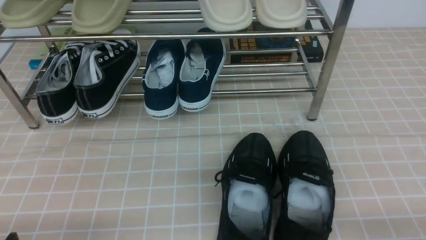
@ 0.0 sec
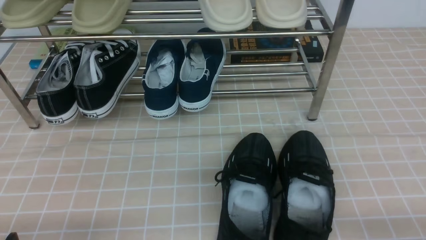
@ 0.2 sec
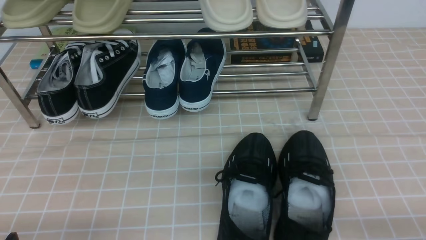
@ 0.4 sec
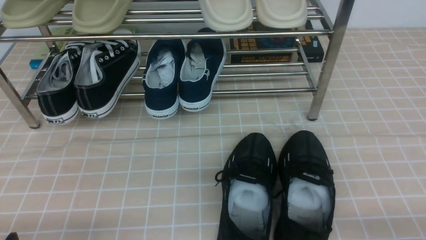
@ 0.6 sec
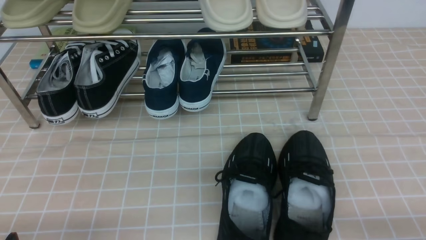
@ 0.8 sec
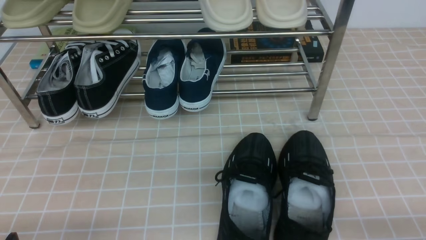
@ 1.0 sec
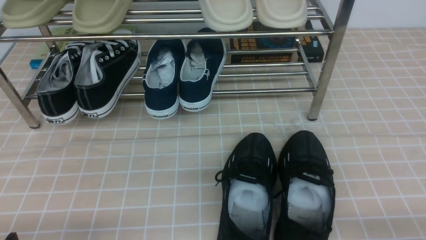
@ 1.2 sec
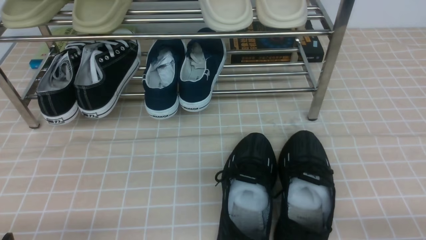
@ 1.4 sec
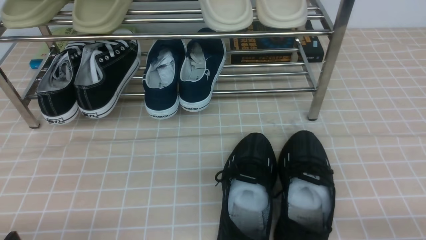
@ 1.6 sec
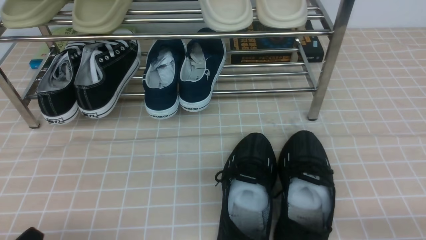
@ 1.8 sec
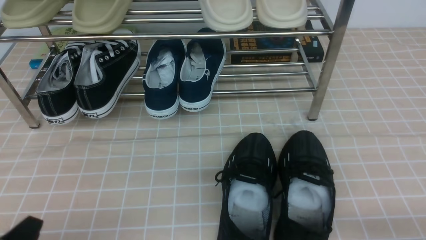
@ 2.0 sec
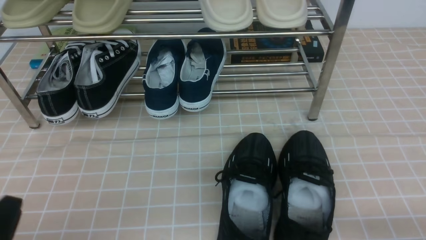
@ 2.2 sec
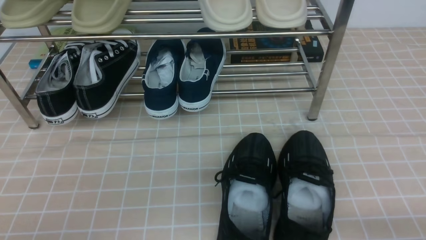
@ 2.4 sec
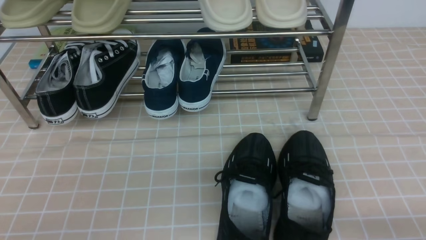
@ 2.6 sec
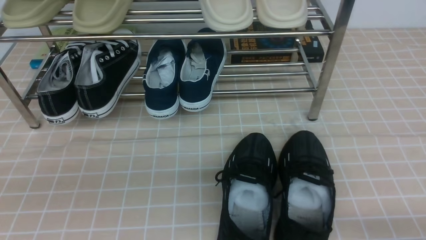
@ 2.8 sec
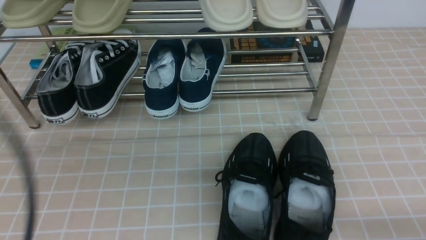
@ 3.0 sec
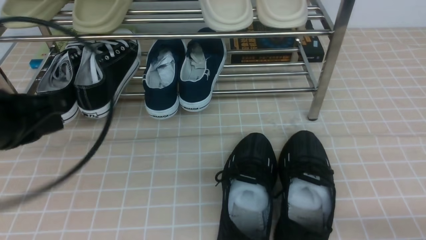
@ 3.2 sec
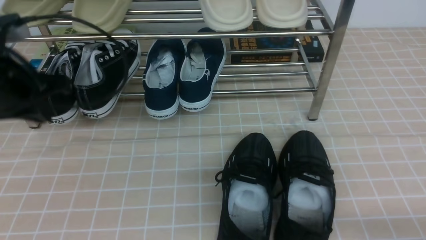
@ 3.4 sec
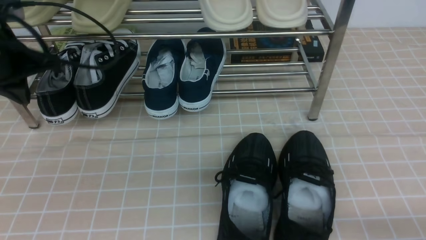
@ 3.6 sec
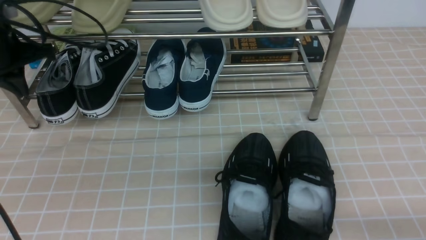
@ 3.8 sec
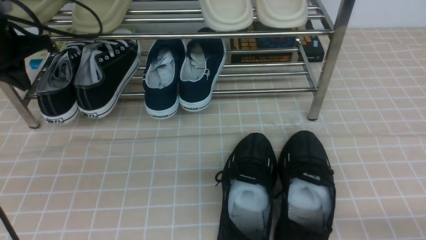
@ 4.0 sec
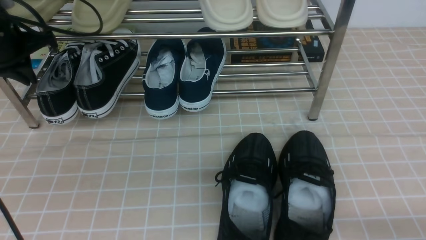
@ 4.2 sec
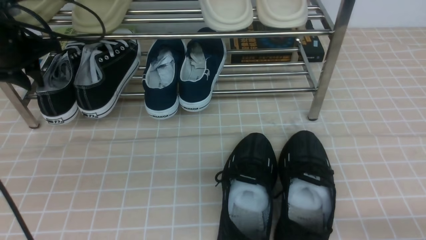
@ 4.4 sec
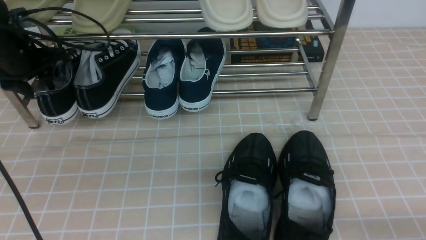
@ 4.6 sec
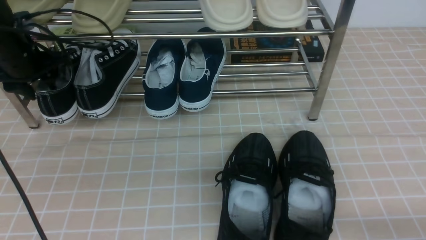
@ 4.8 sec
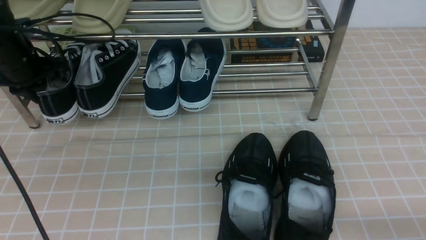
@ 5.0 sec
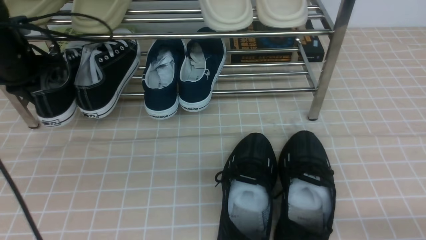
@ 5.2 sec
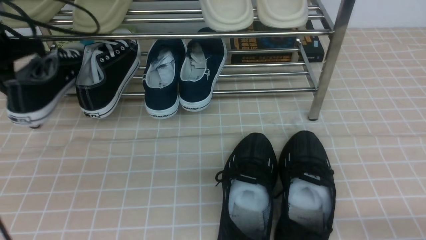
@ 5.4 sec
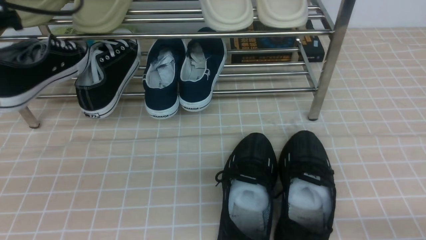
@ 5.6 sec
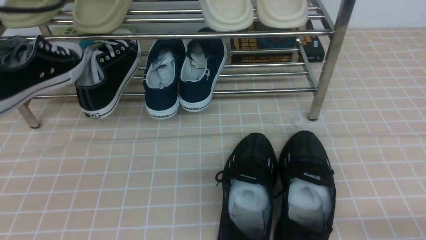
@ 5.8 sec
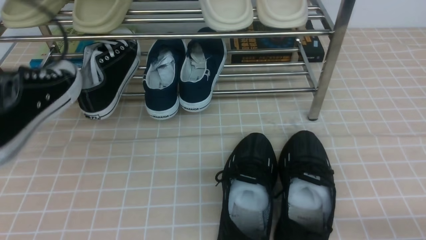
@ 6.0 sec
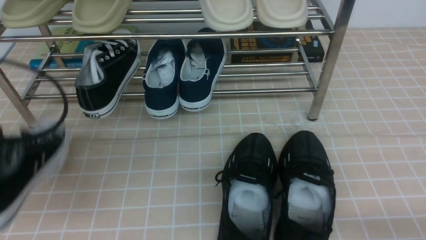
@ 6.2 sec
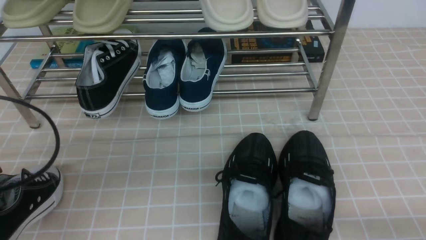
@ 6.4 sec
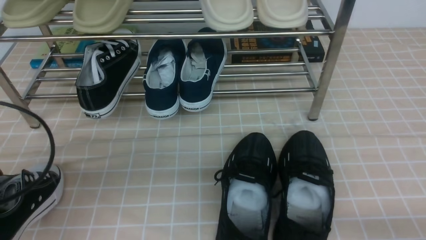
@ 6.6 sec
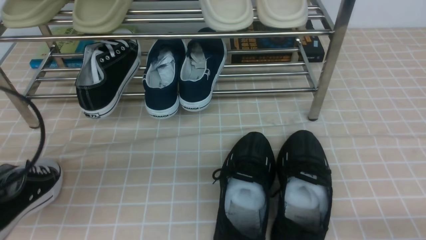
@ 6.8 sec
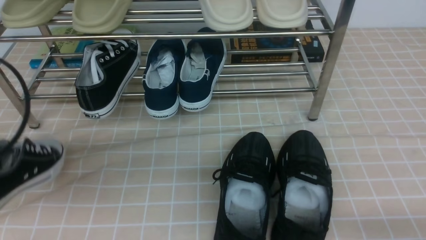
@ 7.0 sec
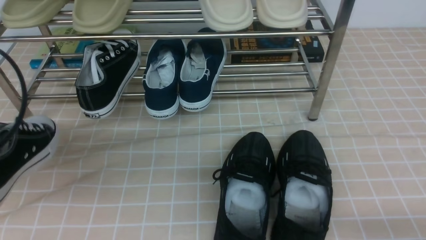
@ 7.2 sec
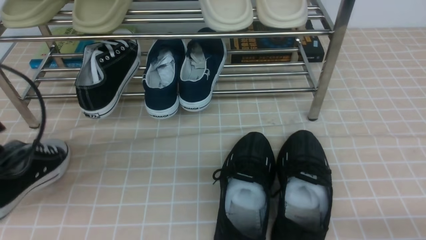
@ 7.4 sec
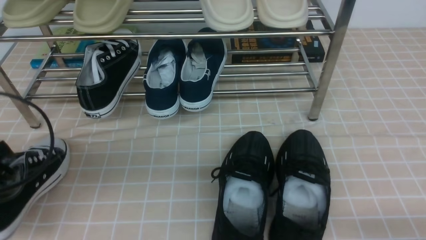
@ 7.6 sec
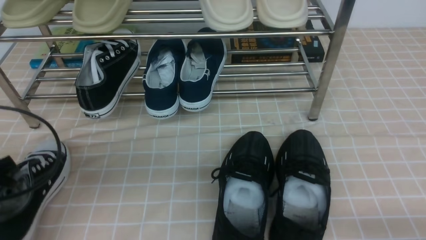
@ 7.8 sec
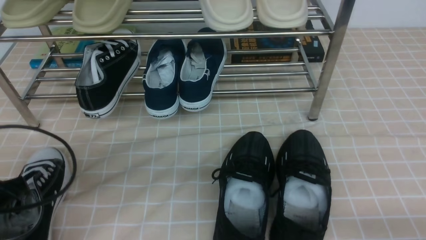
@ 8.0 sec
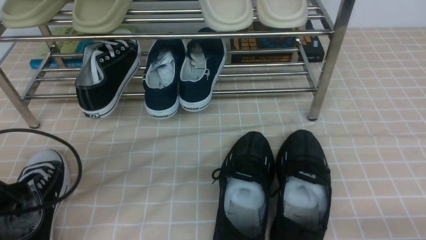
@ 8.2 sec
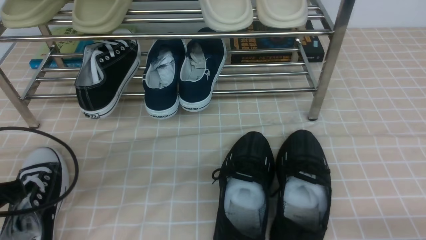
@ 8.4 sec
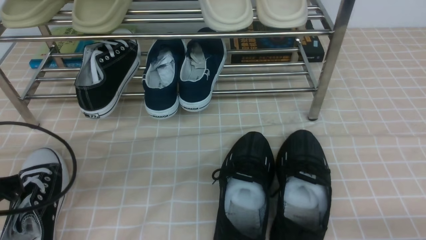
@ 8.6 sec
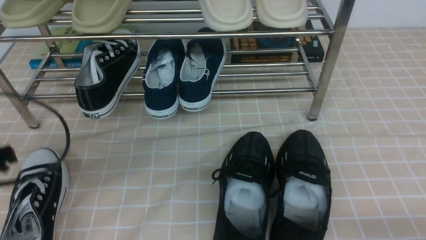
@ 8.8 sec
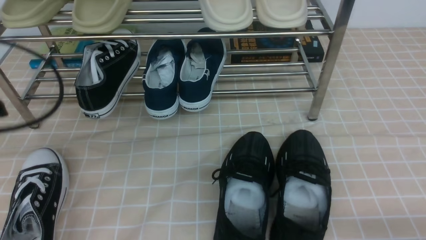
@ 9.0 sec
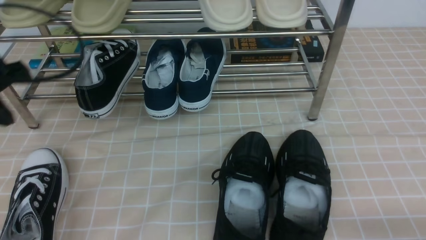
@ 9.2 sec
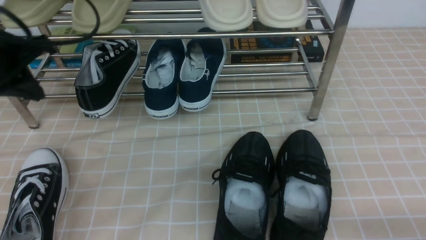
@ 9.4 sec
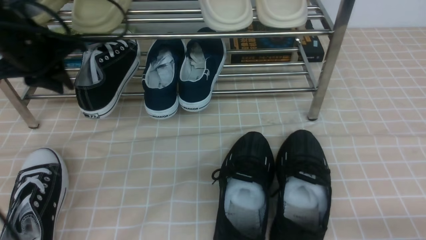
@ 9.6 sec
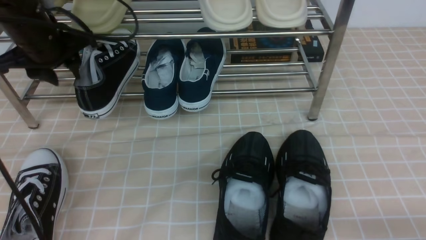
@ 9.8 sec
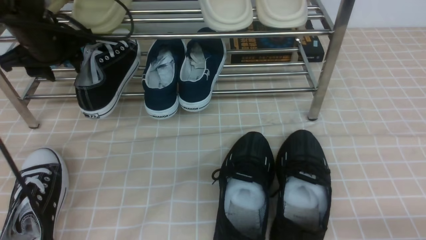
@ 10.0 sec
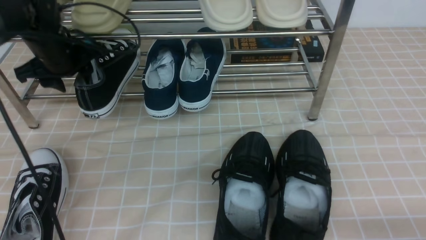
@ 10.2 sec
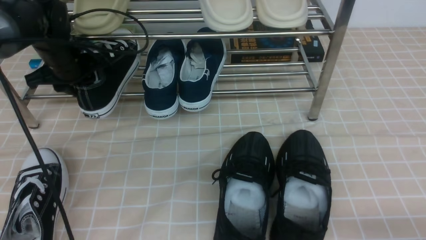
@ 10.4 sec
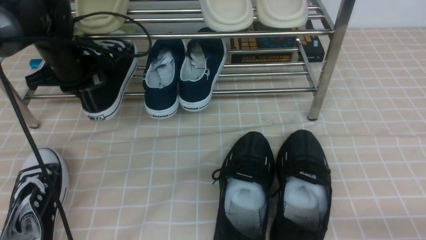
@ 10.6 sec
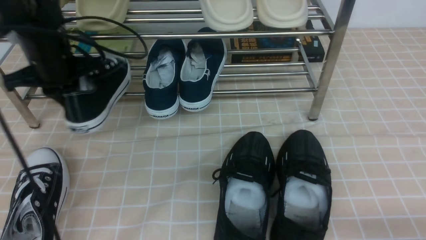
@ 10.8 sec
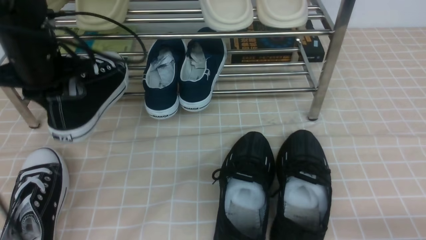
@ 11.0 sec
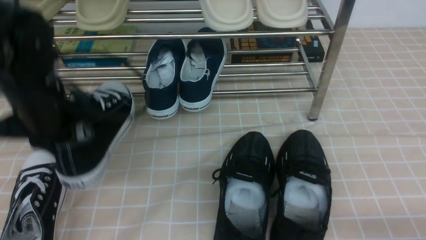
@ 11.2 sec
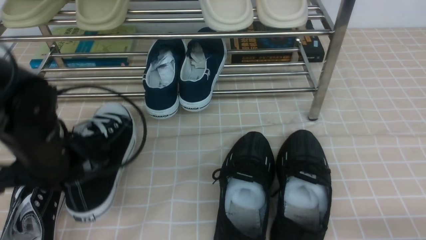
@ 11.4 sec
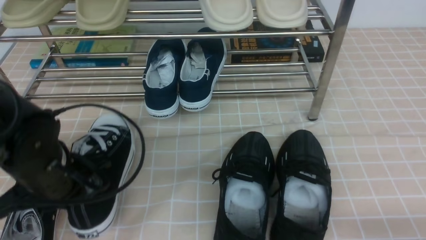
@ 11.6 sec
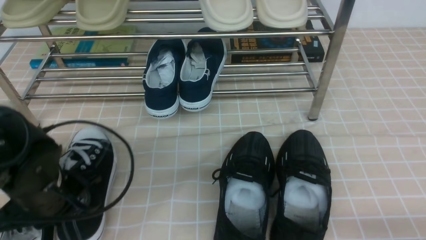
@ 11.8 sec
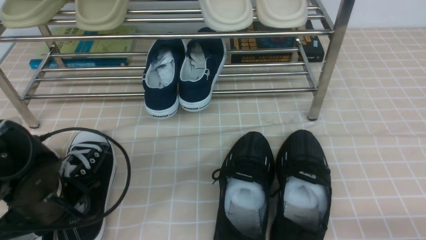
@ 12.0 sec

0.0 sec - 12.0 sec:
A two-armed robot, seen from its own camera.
Step, 0.0 sec - 5.0 sec: use the left arm to clamp a shoe on the left side of the shoe rack.
Step, 5.2 sec - 8.8 sec: Use your left arm to remove the clamped shoe from the shoe rack and put it down.
Step, 9.0 sec - 10.4 sec: use the left arm to clamp a shoe on the left side of the shoe rack.
1.6 sec - 3.0 sec: The left gripper travels upward by approximately 20 cm, and closes its fingers.
3.0 sec - 4.4 sec: The left gripper travels forward by about 30 cm, and opens up.
4.4 sec - 6.0 sec: The left gripper heads backward, covering approximately 15 cm, and closes up.
6.0 sec - 7.6 sec: The left gripper travels downward by roughly 10 cm.
7.6 sec - 9.0 sec: The left gripper is displaced upward by roughly 5 cm.
9.0 sec - 10.4 sec: The left gripper travels forward by roughly 20 cm, and opens and closes again.
10.4 sec - 12.0 sec: The left gripper heads backward, covering about 20 cm, and closes up.

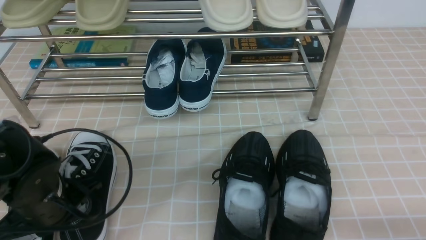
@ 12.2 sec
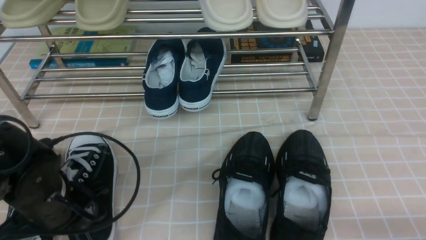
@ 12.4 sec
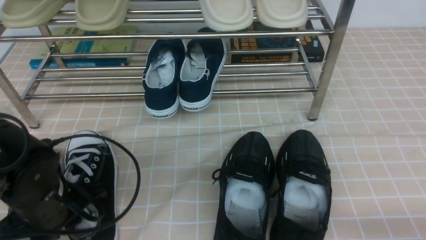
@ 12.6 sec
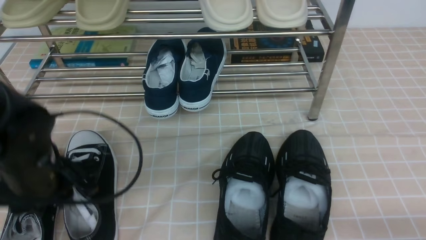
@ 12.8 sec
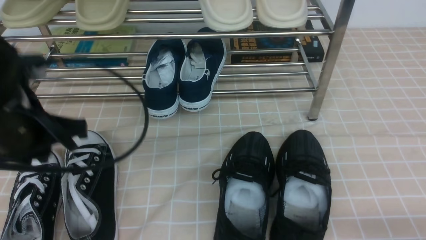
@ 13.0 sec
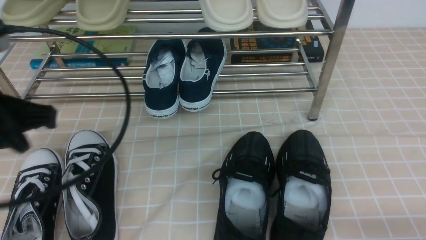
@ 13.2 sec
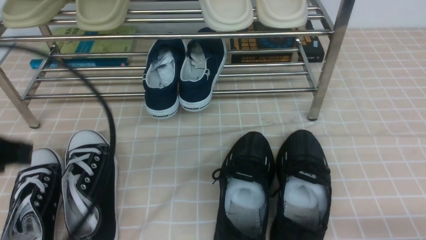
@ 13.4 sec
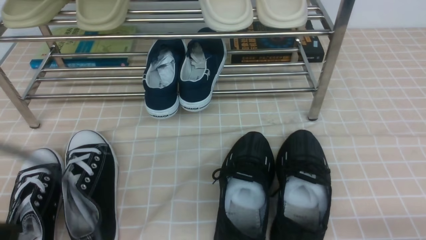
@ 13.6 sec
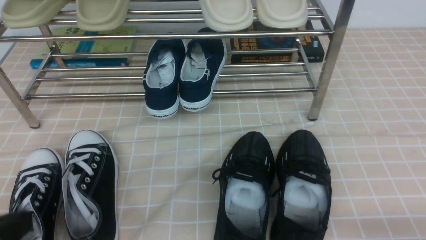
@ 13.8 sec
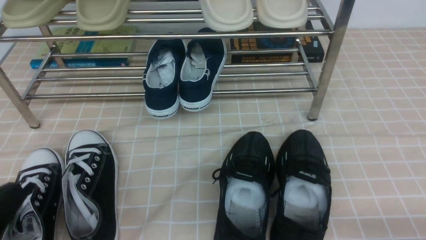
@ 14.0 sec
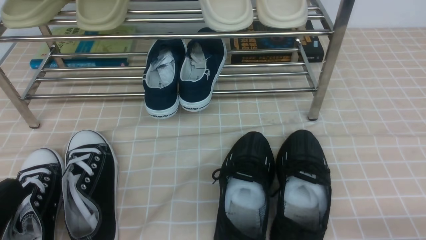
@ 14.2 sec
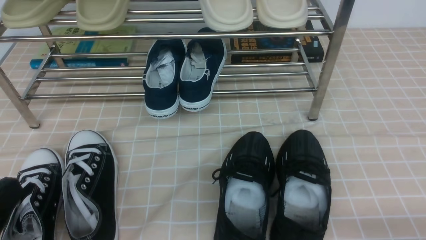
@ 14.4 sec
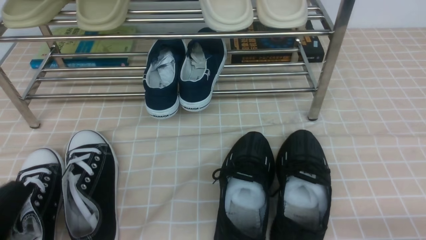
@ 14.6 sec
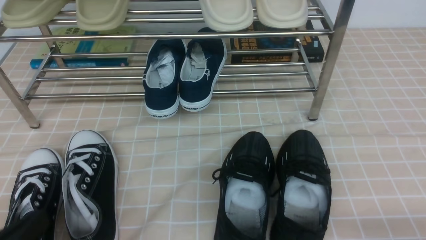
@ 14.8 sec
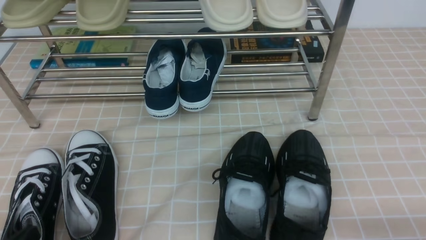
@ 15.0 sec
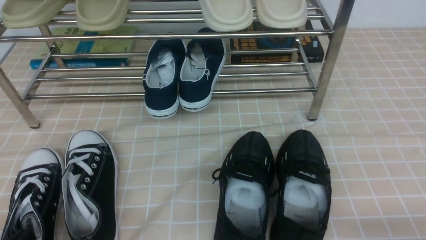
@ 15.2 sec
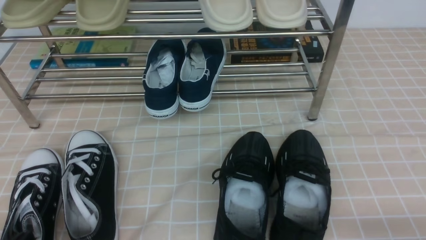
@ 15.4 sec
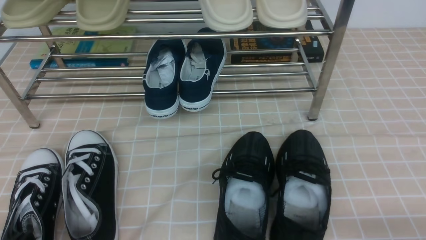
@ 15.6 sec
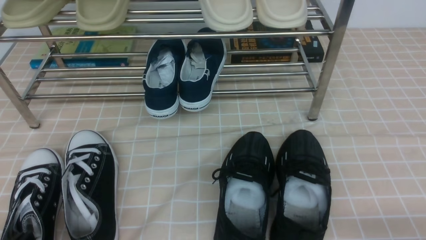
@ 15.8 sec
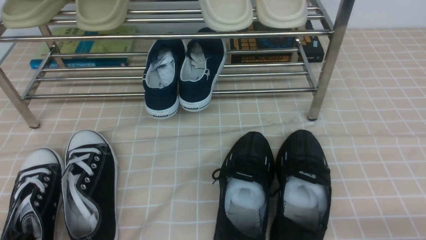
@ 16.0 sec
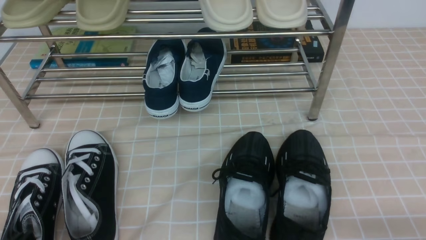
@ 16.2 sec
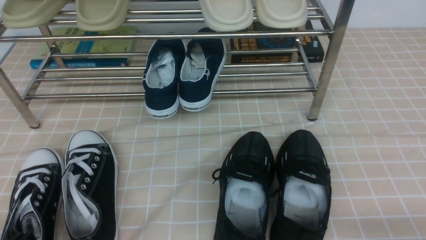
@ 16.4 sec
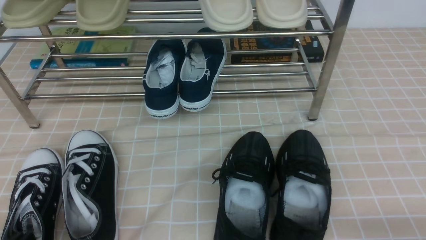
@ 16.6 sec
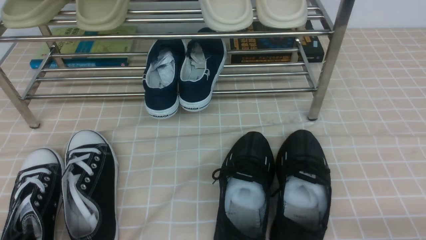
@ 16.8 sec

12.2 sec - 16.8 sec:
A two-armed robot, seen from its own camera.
12.2 sec - 13.8 sec: The left gripper shifts about 20 cm backward and upward, and opens, then closes once more.
13.8 sec - 15.2 sec: The left gripper shifts approximately 15 cm downward.
15.2 sec - 16.8 sec: Both grippers stay about where they are.
